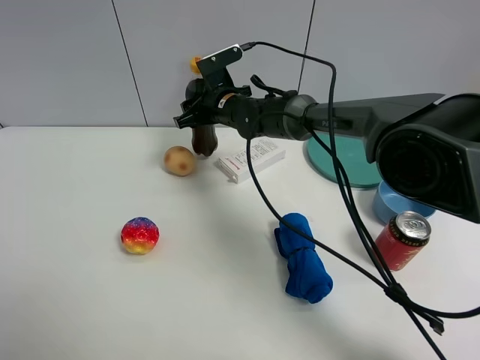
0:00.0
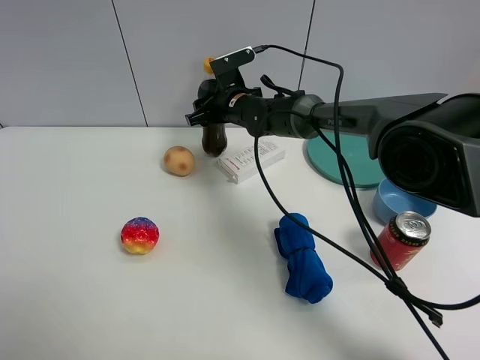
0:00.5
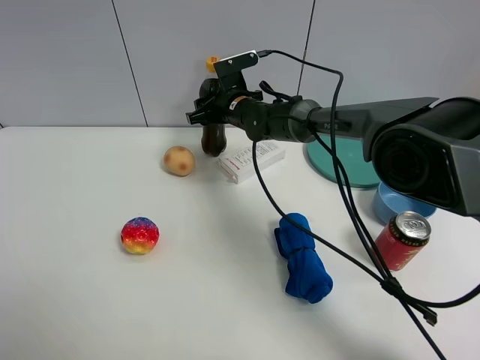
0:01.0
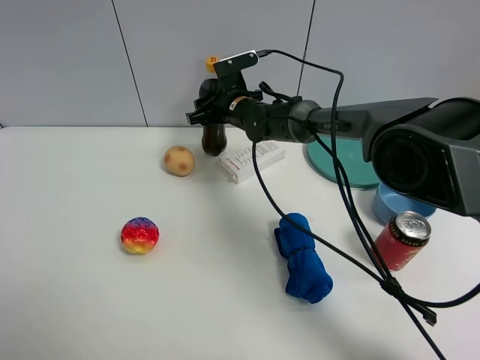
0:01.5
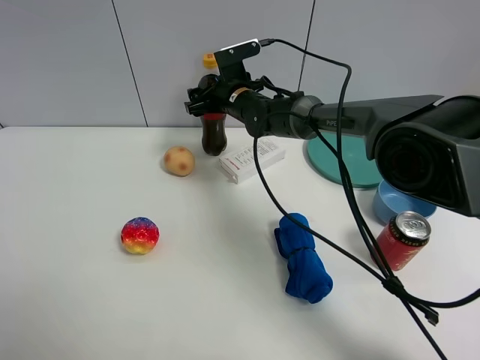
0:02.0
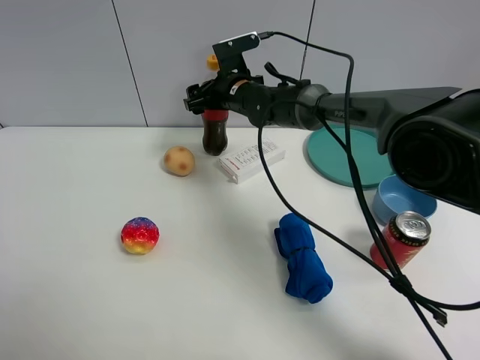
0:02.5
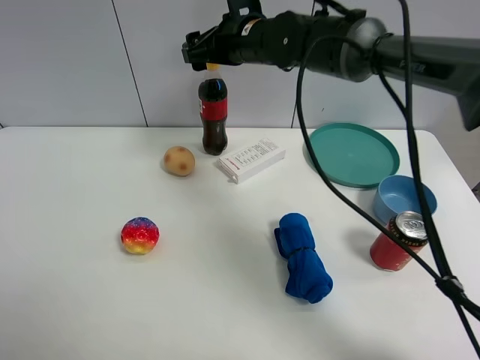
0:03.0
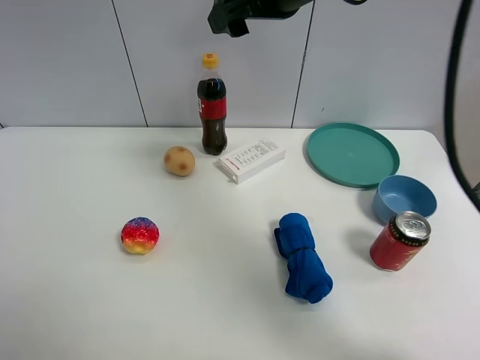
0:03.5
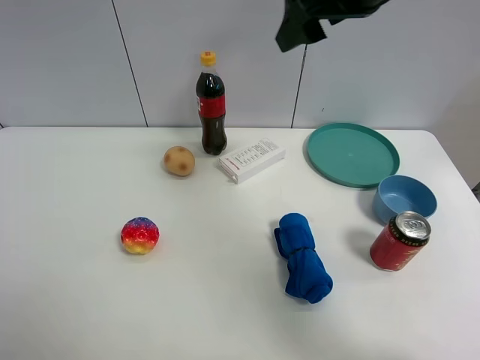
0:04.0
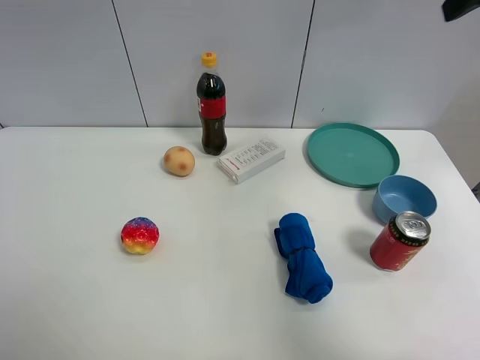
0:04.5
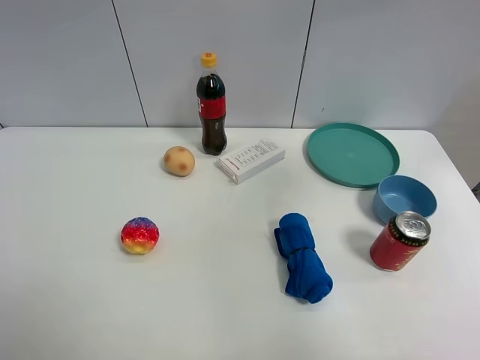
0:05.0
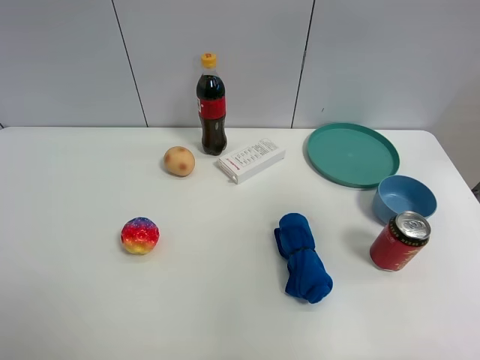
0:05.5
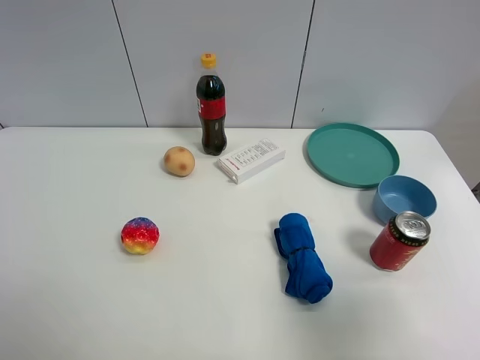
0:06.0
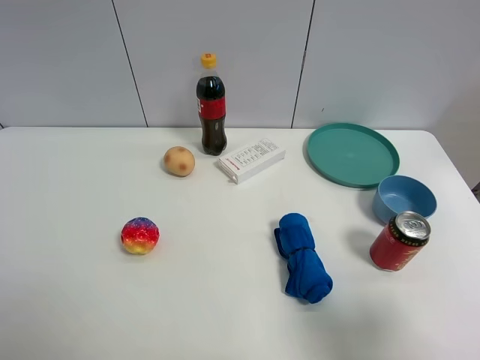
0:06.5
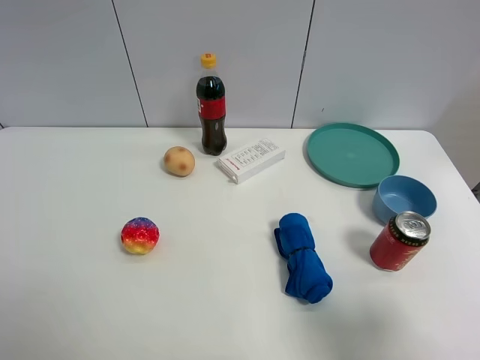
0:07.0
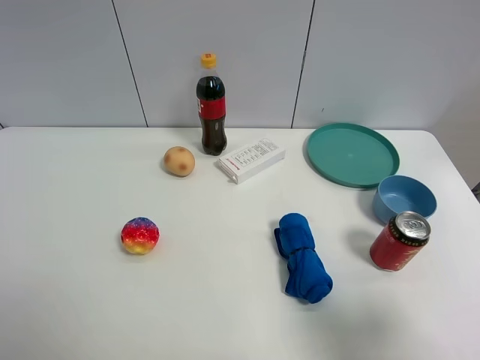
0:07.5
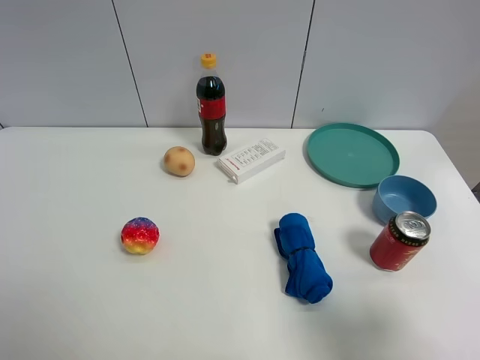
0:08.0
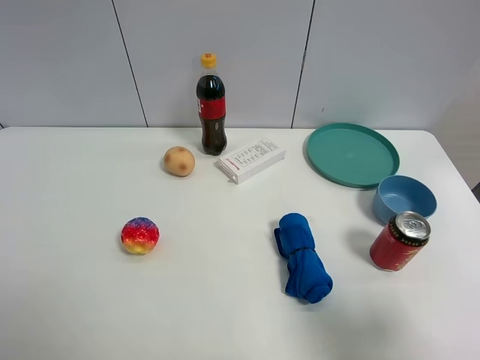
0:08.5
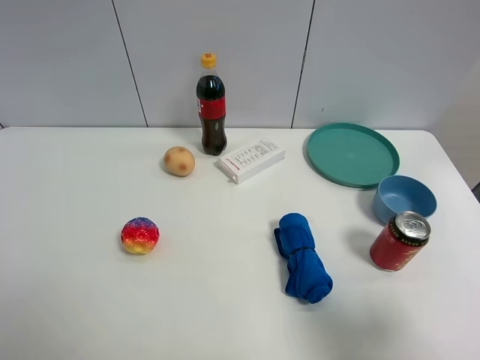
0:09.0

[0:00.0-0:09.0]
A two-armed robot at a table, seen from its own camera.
Task of the whole recording: the gripper move the object.
0:00.0 to 0:02.0: The right gripper opens its fingers.
0:02.0 to 0:04.5: The right gripper travels upward, to the right and backward by some 40 cm.
0:04.5 to 0:07.0: The right gripper is displaced backward and downward by about 35 cm.
0:07.0 to 0:09.0: Both grippers stay about where they are.
